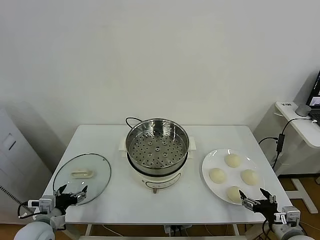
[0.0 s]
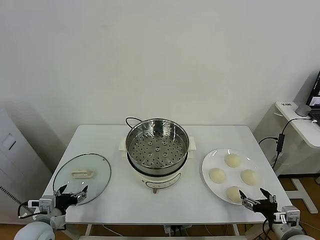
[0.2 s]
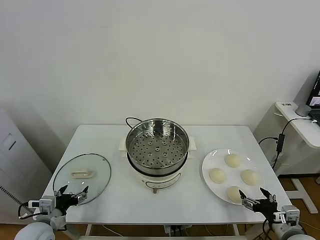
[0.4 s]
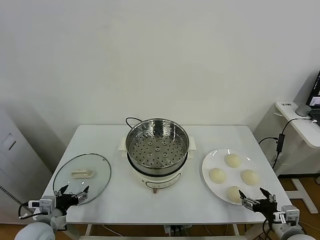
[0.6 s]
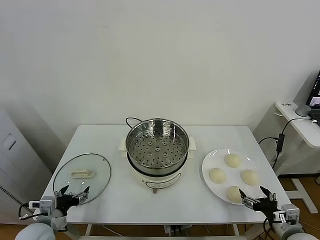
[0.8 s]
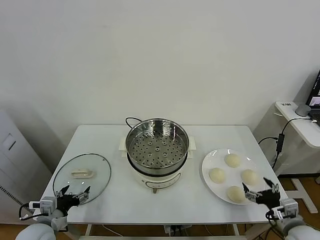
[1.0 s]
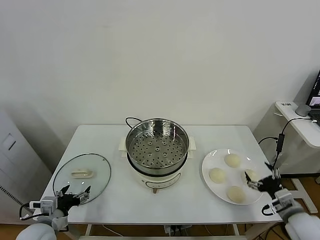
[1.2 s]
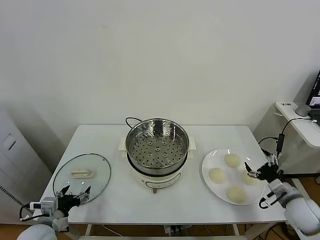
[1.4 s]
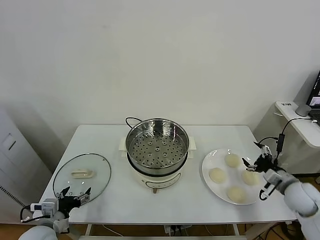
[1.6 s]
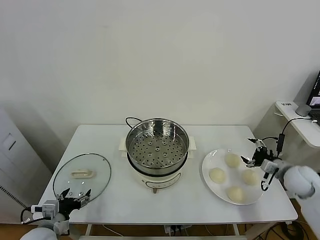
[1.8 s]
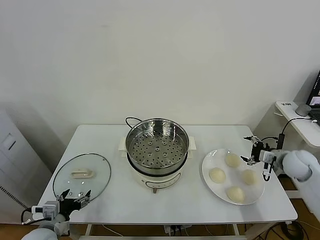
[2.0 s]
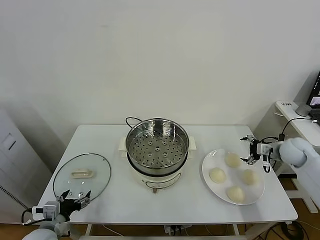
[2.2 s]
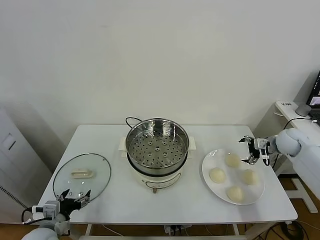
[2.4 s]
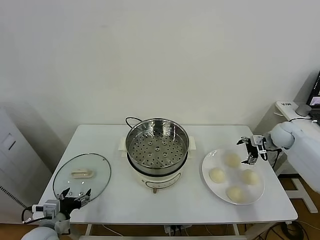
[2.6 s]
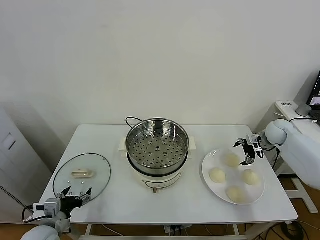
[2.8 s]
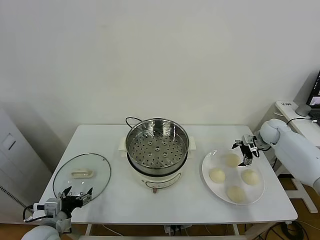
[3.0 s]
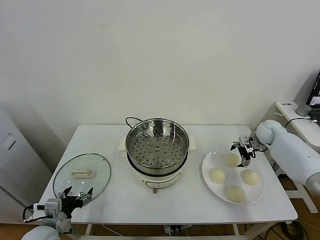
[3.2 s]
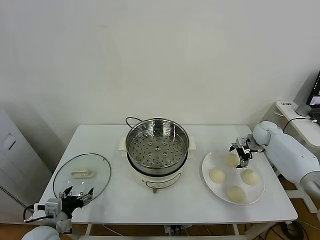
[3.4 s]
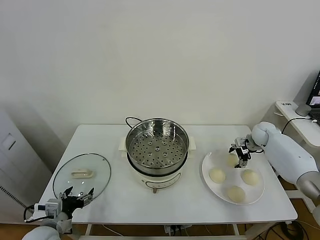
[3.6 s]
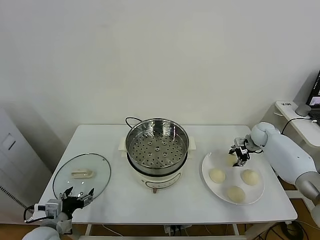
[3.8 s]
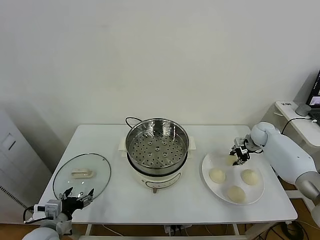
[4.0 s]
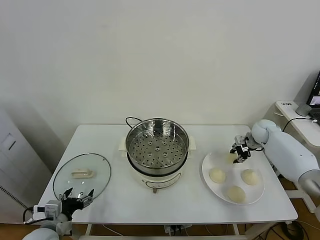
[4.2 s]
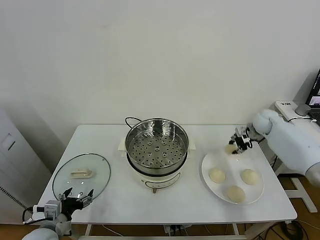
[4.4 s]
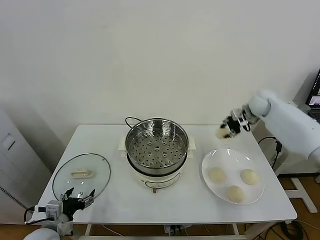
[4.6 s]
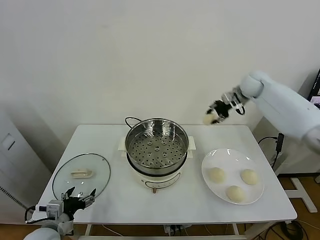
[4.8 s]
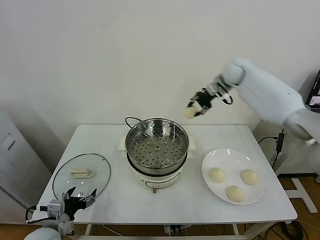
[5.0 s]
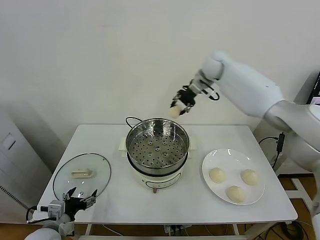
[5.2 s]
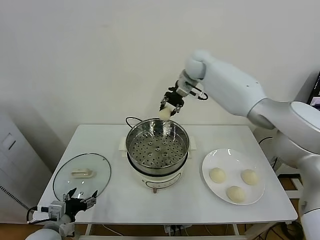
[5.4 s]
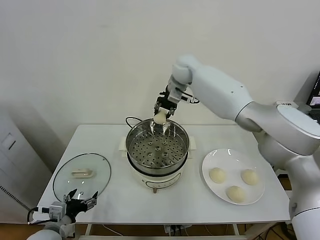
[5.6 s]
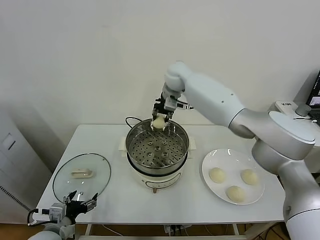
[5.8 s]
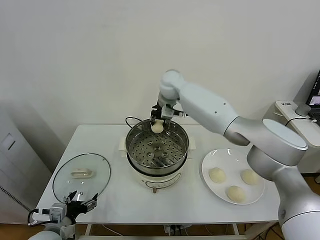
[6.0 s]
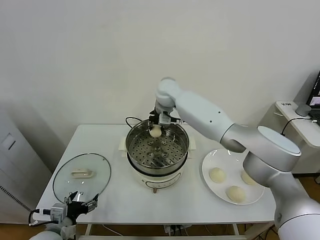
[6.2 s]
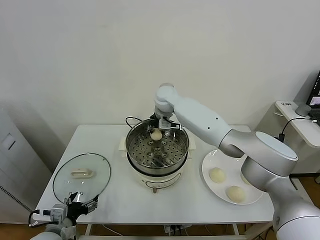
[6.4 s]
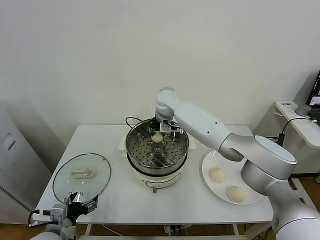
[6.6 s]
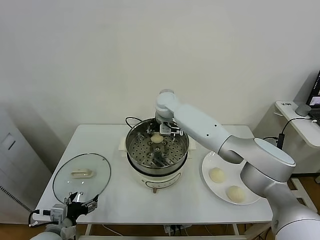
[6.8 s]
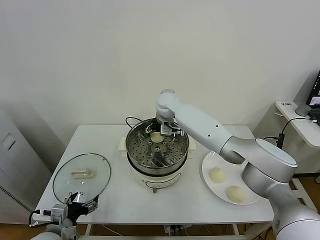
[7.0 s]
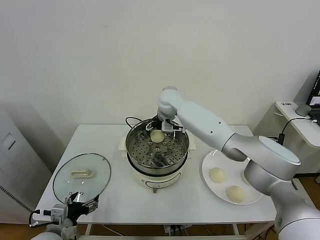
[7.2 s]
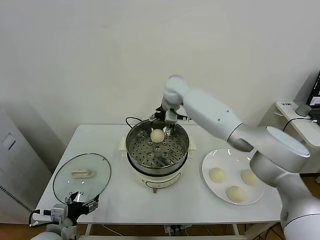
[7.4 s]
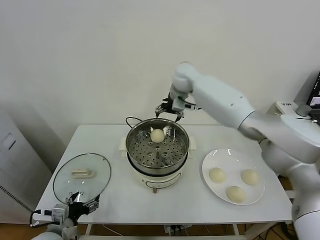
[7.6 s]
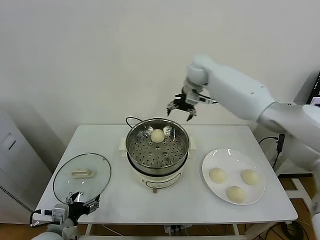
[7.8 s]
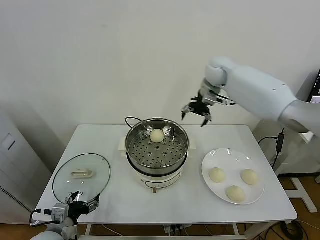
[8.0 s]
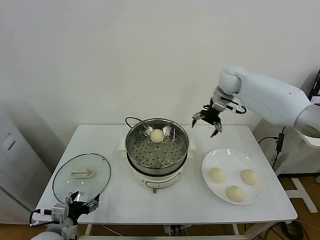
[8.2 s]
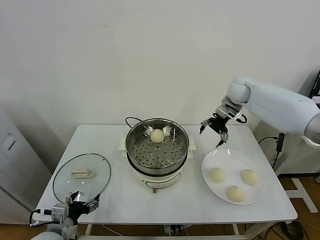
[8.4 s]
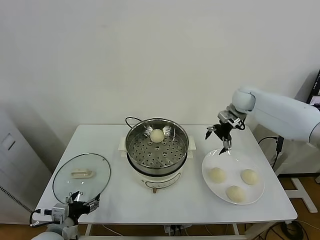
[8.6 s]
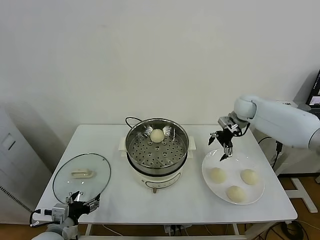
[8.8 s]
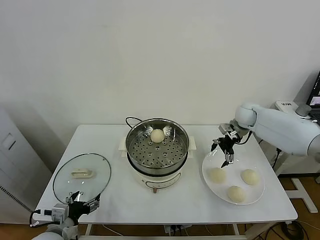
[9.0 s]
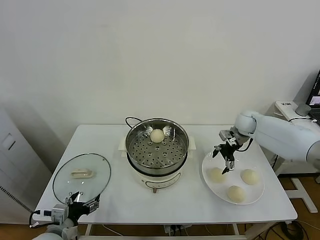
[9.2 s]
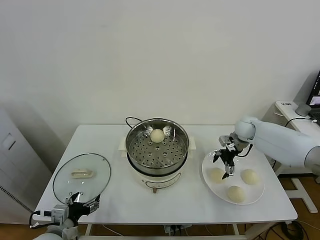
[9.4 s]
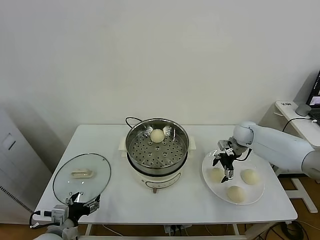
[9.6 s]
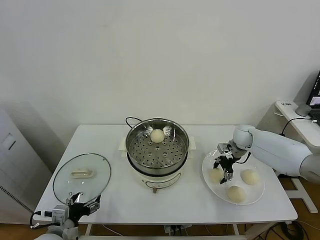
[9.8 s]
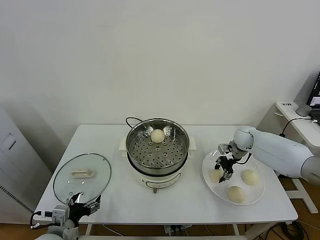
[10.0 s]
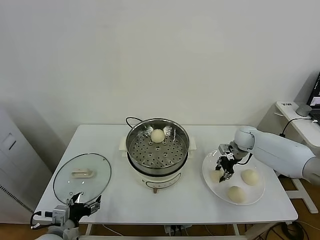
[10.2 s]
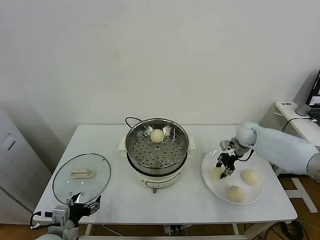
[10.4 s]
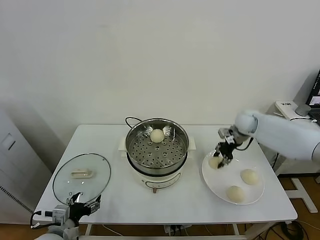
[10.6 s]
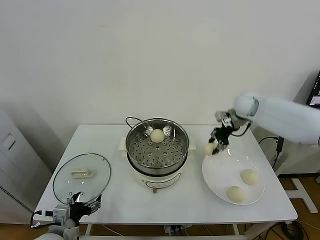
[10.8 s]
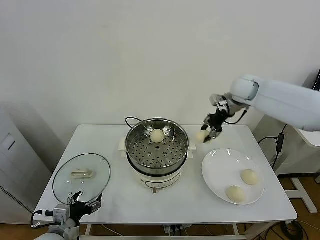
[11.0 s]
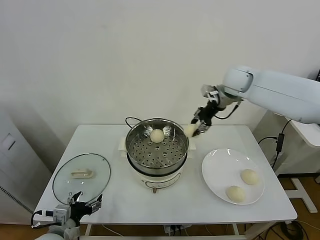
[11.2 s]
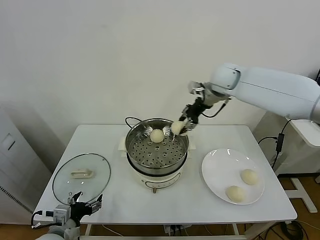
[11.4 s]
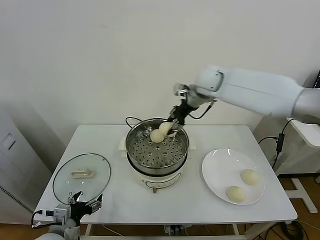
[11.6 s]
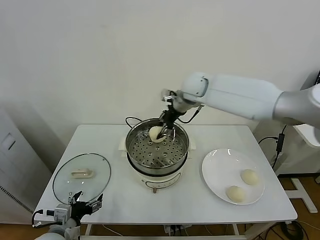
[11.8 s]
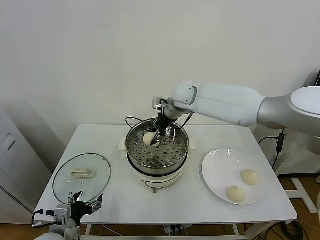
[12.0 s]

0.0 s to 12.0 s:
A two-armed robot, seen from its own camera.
Task of the whole recording: take steamed baozi put them in steamer.
Step, 0.0 to 3.8 s: Grasp the baozi in the plate with right gripper.
Step, 4.0 to 7.2 s: Place the baozi on the steamer with right gripper.
Step, 7.4 to 10.2 s: Grasp the baozi in the plate with right gripper.
1.6 to 3.0 s: The right gripper is displaced forward by roughly 20 cm.
3.0 to 4.4 s: The right gripper shifts some 10 cm upward, and closes up.
4.4 to 6.0 s: The right gripper moves to the left, about 35 cm.
6.0 to 7.6 s: The right gripper travels to the right and upward by approximately 10 cm, and opens its fingers.
7.6 to 9.0 s: The right gripper shifts roughly 30 cm to the right and downward.
9.0 to 10.4 s: The right gripper closes its fingers.
10.4 to 12.0 s: The right gripper moves to the left and upward, approximately 30 cm.

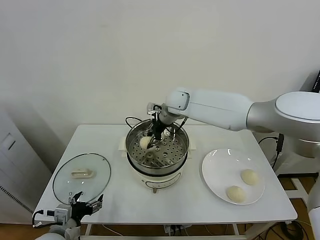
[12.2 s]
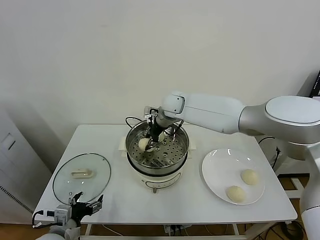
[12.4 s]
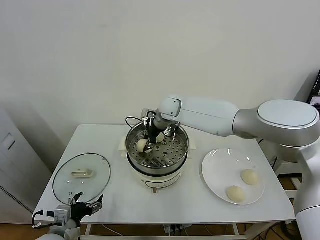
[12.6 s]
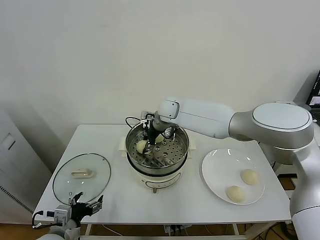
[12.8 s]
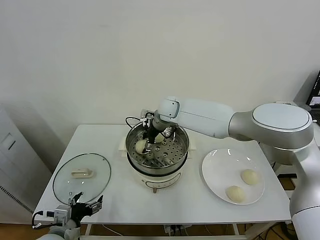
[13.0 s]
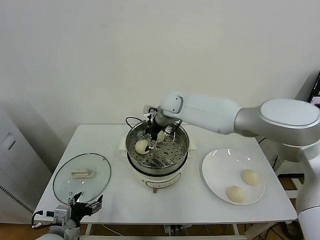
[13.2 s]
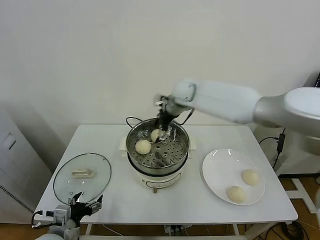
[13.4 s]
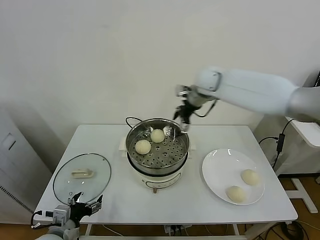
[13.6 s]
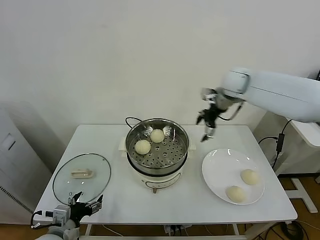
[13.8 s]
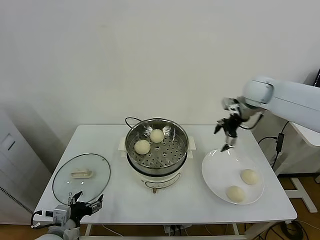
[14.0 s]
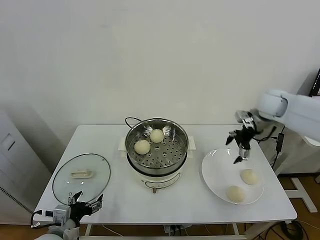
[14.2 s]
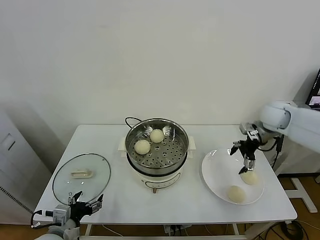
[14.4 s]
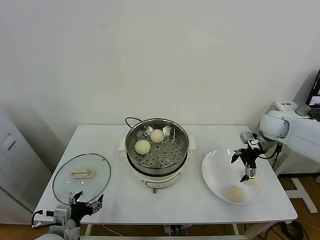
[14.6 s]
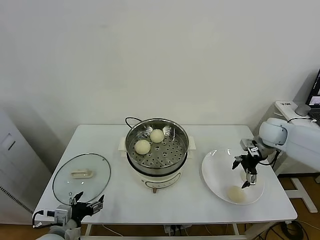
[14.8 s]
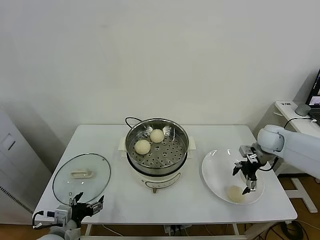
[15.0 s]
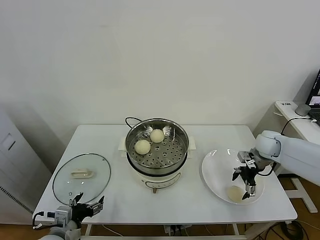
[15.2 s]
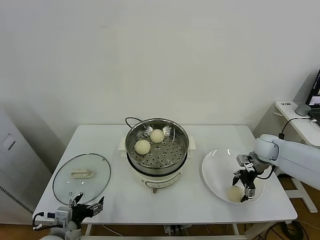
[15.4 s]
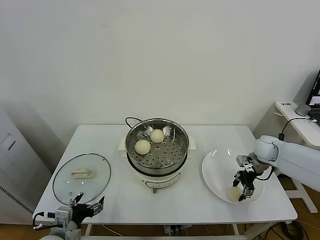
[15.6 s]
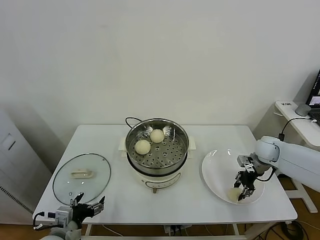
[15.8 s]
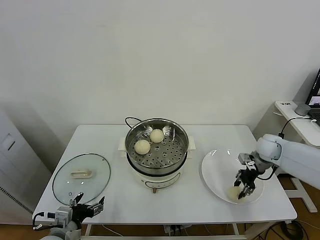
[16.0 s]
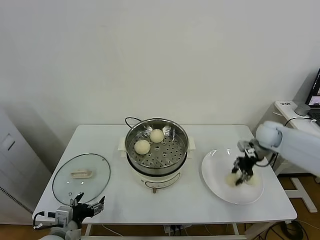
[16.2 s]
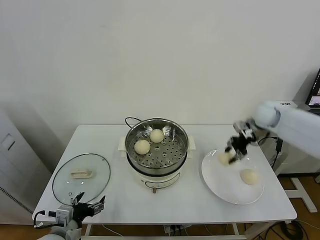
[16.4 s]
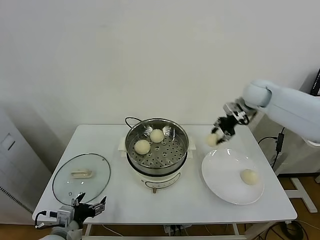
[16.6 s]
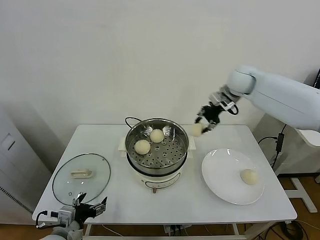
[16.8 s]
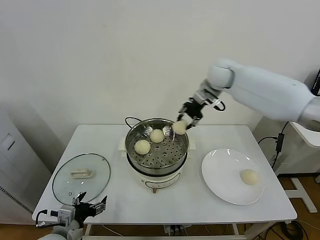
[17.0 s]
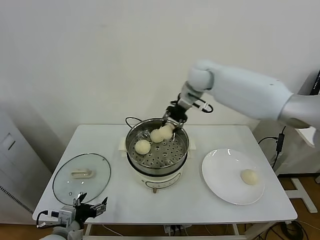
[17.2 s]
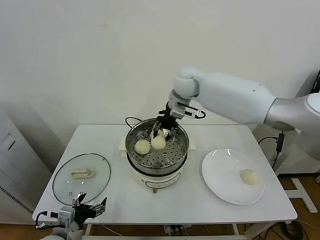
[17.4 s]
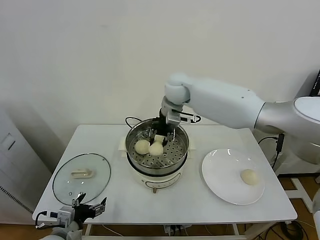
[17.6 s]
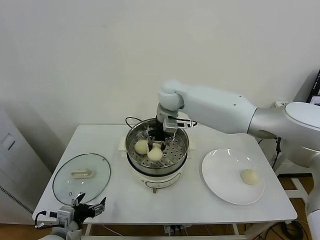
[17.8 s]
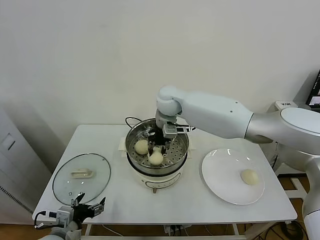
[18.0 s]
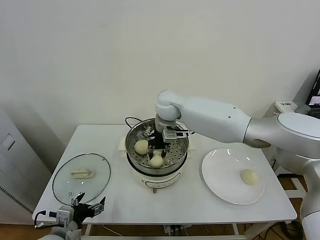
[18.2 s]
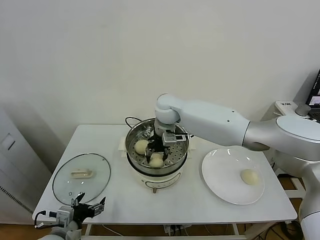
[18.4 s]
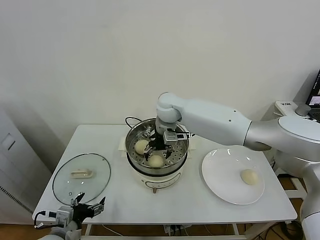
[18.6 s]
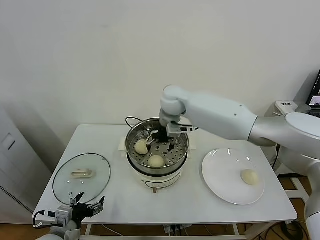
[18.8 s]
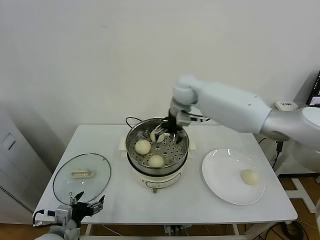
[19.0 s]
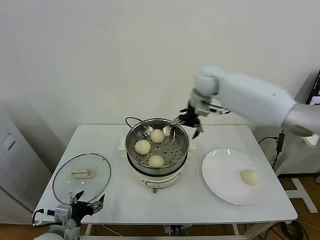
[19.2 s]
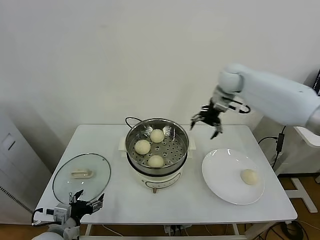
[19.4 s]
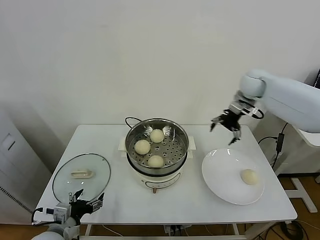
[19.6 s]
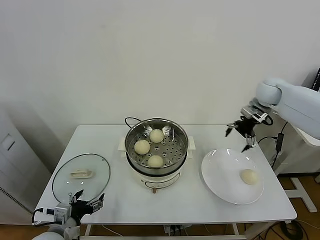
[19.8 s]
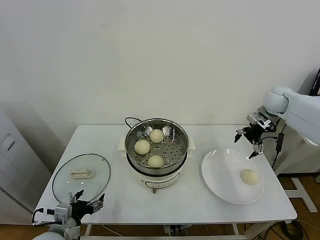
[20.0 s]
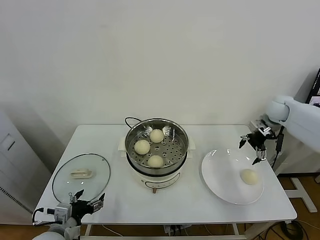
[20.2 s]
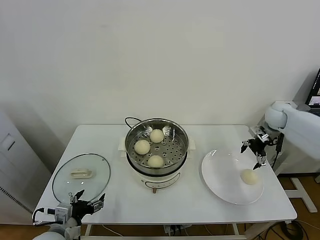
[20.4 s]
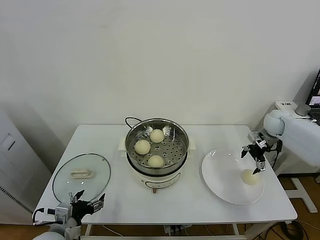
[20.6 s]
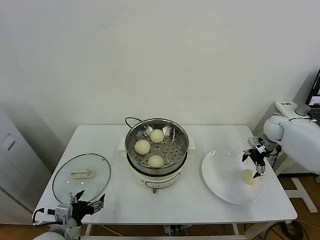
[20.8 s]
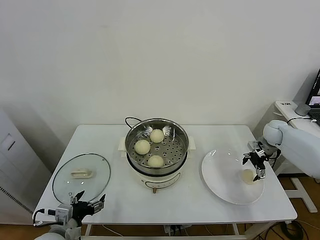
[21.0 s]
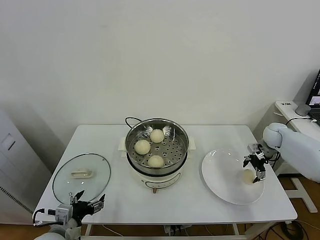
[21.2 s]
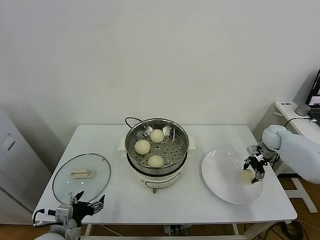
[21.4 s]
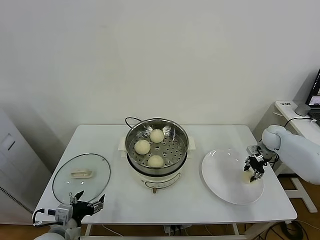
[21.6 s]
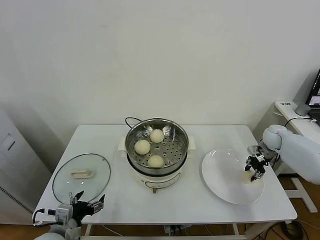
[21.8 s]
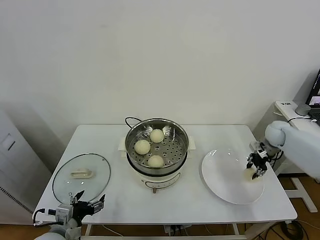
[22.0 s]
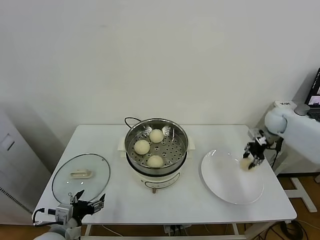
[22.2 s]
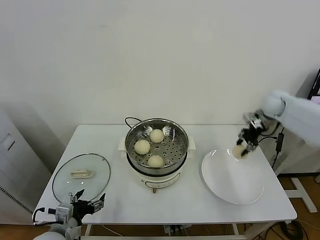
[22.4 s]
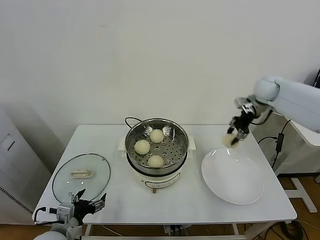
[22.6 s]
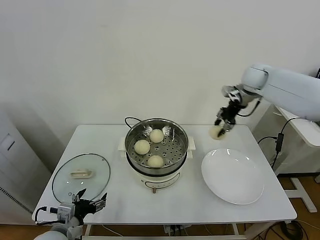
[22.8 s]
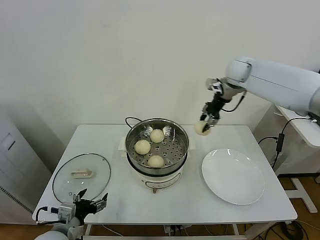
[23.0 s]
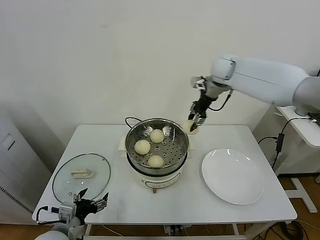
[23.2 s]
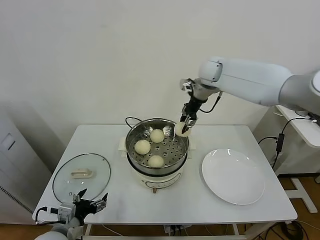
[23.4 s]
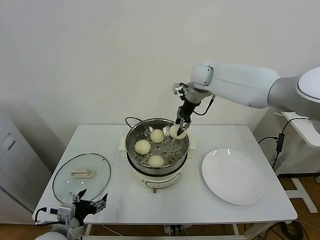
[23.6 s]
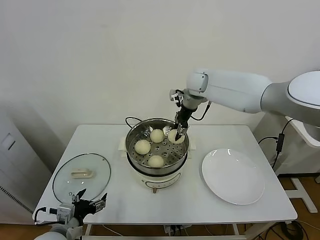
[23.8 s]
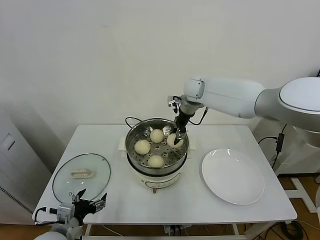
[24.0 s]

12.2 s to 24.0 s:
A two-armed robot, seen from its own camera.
Task of the whole recording: take steamed baozi put them in steamer.
Step, 13.4 to 15.6 s: Grasp the baozi in the plate with right gripper.
Step, 15.8 to 18.6 s: Place the baozi on the steamer with right gripper.
Step, 18.8 to 21.6 s: Grasp the baozi in the plate with right gripper.
12.2 to 13.6 s: The right gripper shifts some 15 cm to the right and upward, and opens its fingers.
13.6 to 15.2 s: The right gripper moves downward, to the right and backward, about 30 cm.
15.2 to 16.6 s: The right gripper heads upward, to the left and forward, covering roughly 20 cm, and closes up.
16.6 to 18.2 s: The right gripper is displaced to the left by about 30 cm.
18.2 to 19.6 s: The right gripper travels to the right by approximately 30 cm, and opens its fingers.
19.6 to 21.0 s: The right gripper heads downward and to the right, covering about 25 cm.
21.0 to 22.6 s: The right gripper shifts some 20 cm upward and to the left, and closes its fingers.
22.6 to 24.0 s: The right gripper goes roughly 25 cm to the left.
